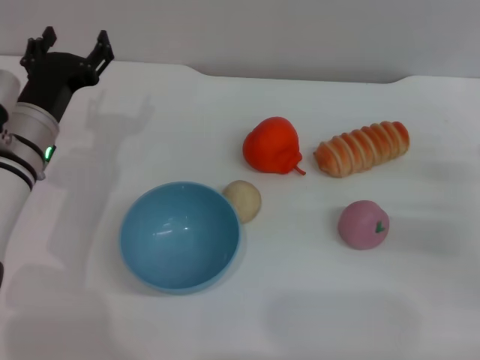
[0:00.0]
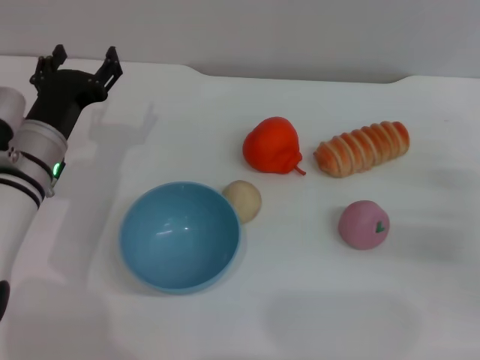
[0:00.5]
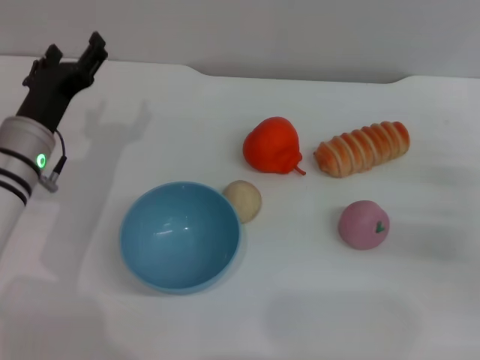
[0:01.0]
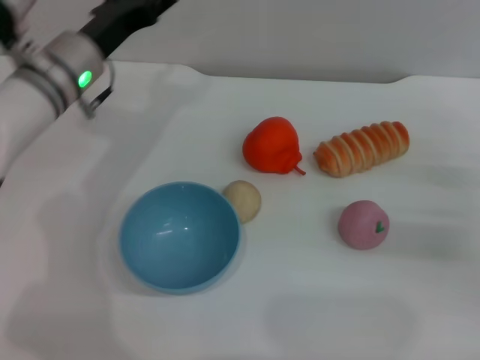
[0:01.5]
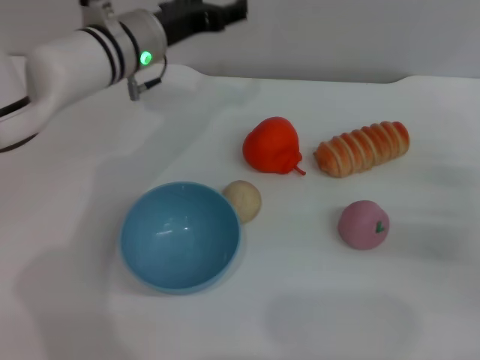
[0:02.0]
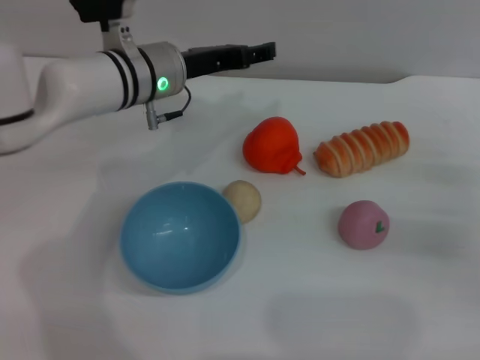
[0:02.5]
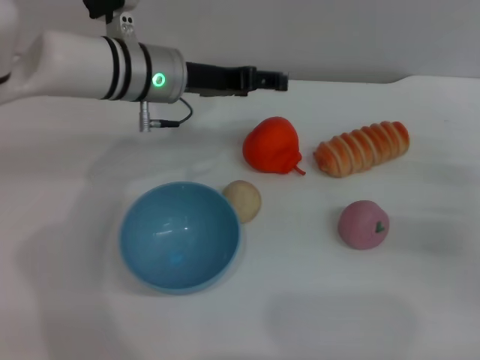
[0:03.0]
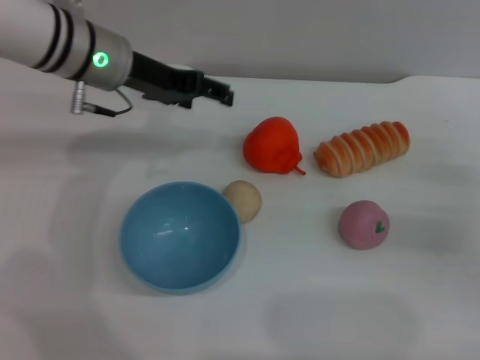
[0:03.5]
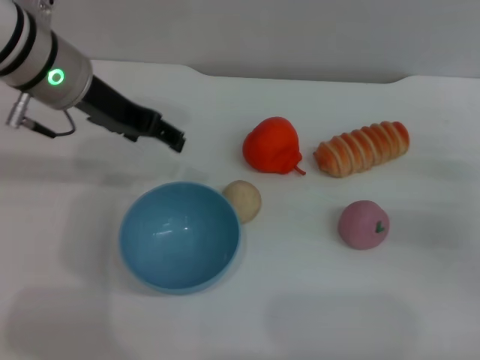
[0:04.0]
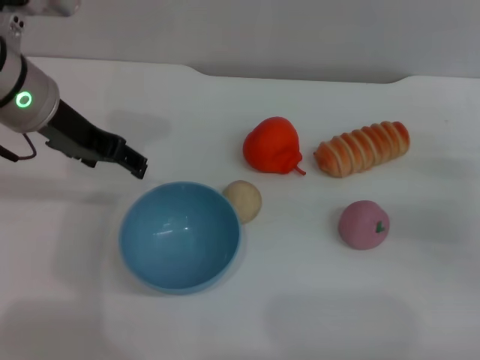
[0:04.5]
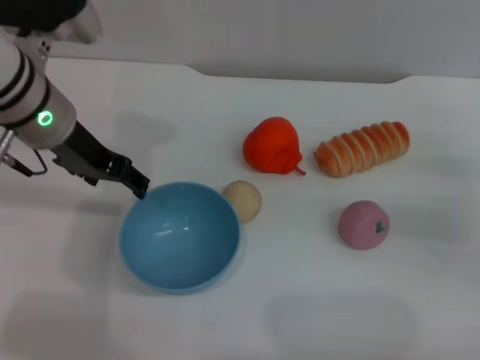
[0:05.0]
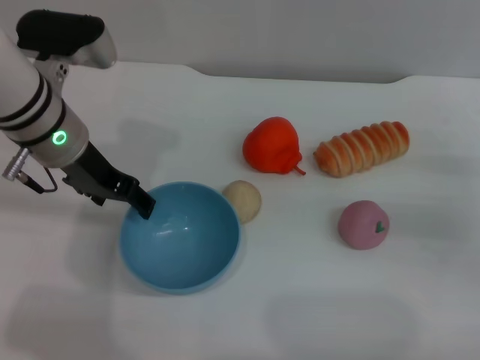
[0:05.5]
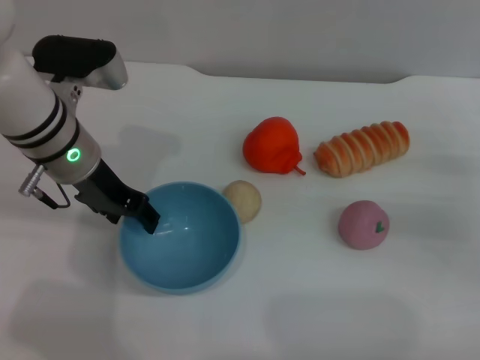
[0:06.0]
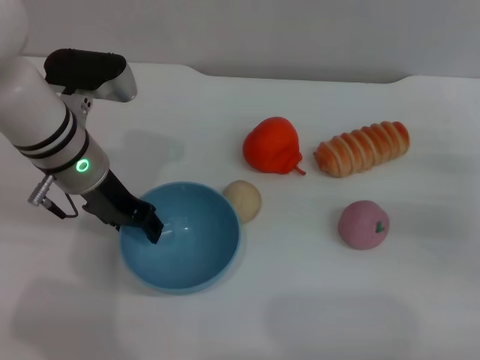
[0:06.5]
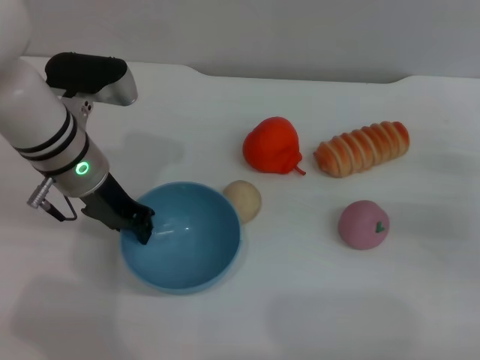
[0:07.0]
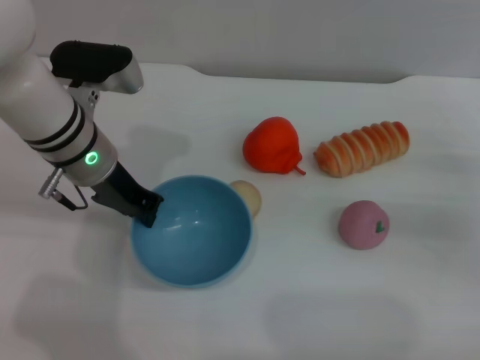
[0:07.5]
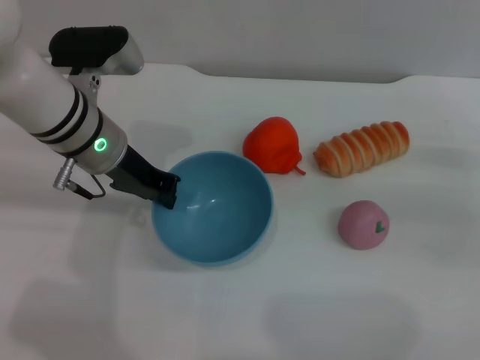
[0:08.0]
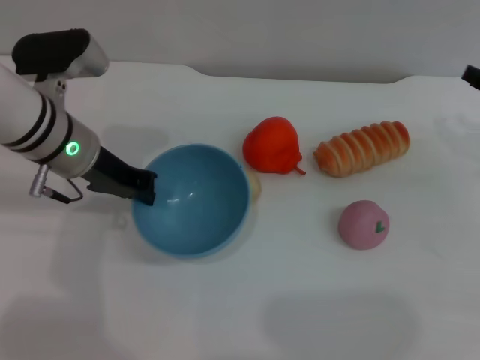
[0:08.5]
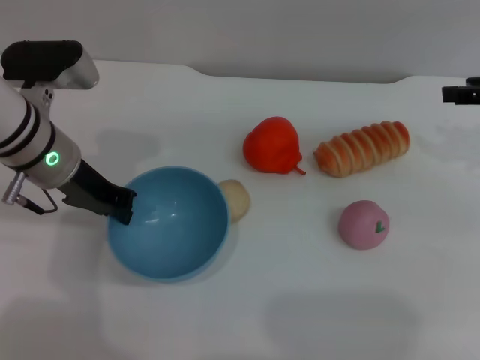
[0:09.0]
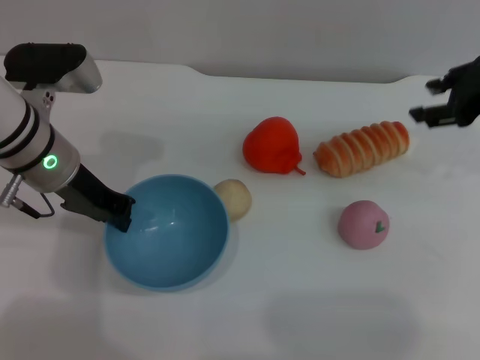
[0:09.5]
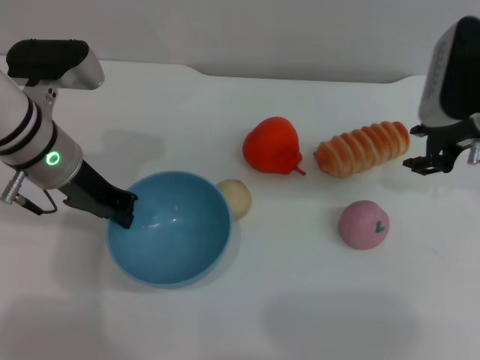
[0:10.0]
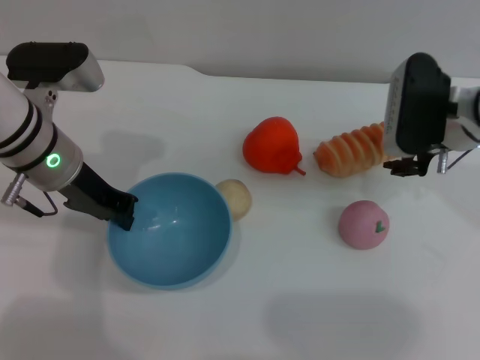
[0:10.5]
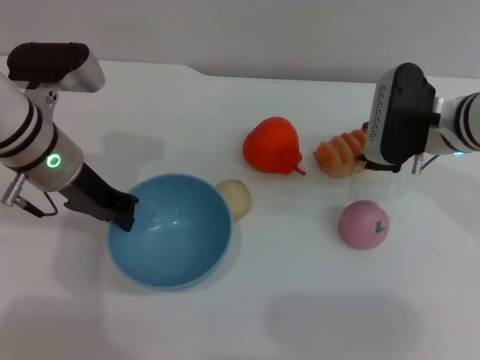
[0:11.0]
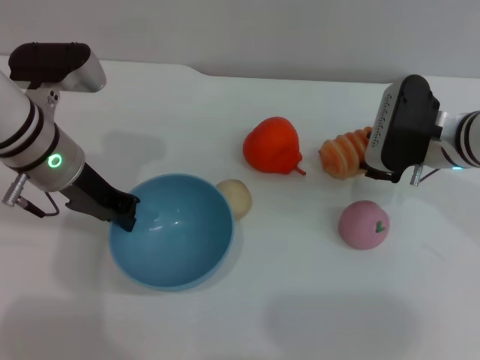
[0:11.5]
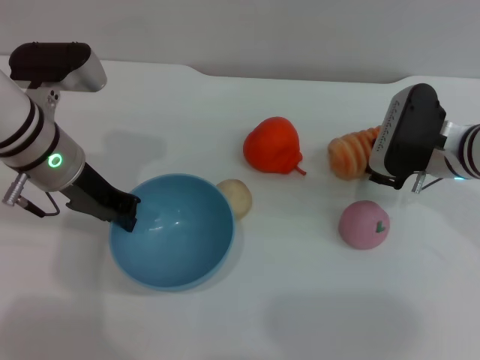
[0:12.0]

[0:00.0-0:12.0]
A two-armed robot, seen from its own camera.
Task of the whole recording: put the bread into the blue bowl and pour it out repeatedly.
Step, 0:00.0 to 0:08.0: Pick up the bowl with the left gripper.
0:00.0 to 0:02.0: The left gripper heads to the right, forward and upward, covering approximately 15 cm.
0:02.0 to 0:04.0: The left gripper heads upward and backward, covering about 10 cm.
0:04.0 to 0:06.0: The left gripper shifts approximately 5 cm downward.
0:06.0 to 0:08.0: The left gripper closes its fingers.
0:08.0 to 0:10.0: The right gripper moves to the left, upward and forward, some 15 cm.
0:10.0 to 0:12.0: The right gripper heads downward, covering about 10 cm.

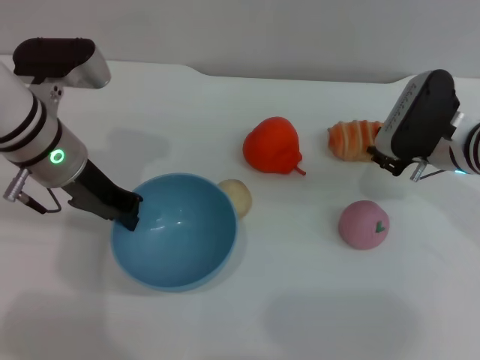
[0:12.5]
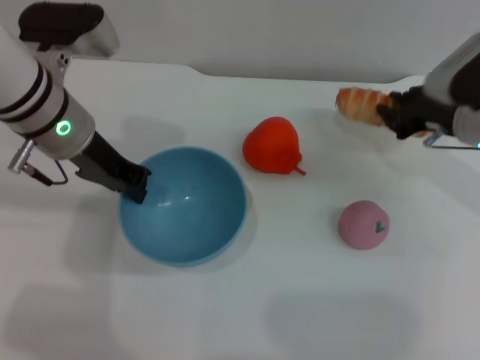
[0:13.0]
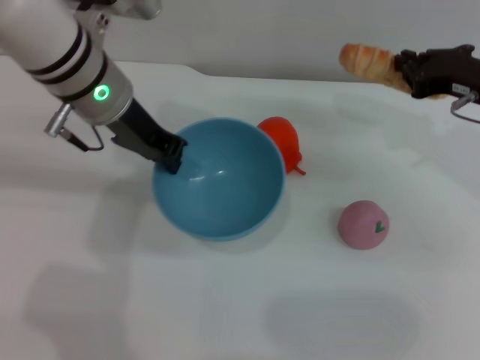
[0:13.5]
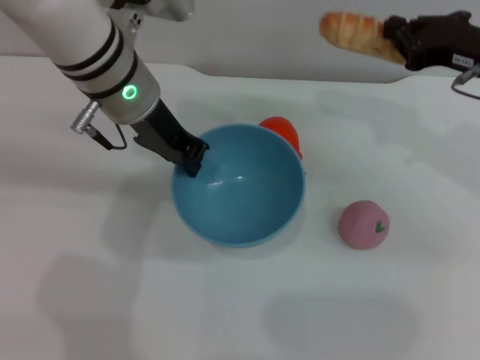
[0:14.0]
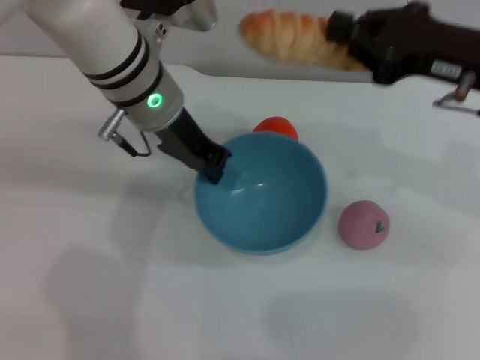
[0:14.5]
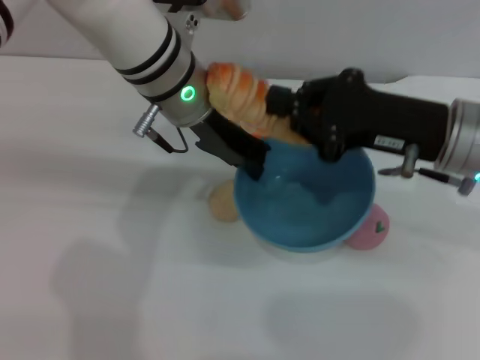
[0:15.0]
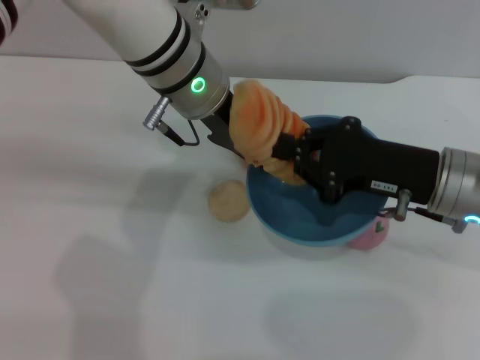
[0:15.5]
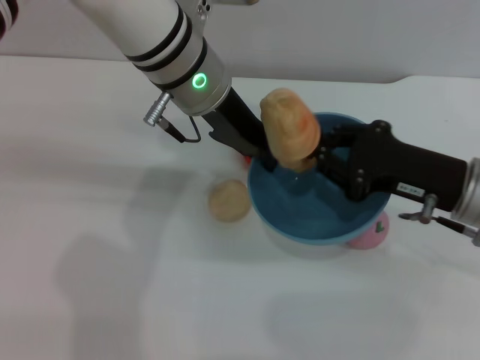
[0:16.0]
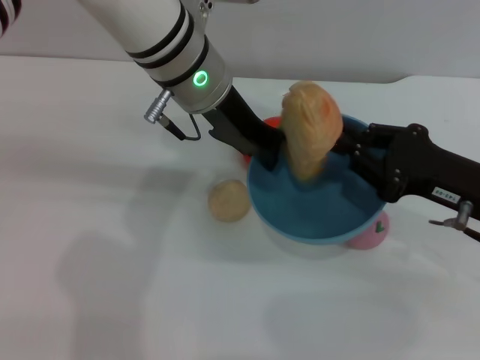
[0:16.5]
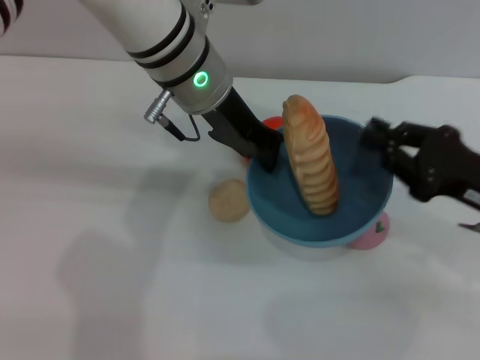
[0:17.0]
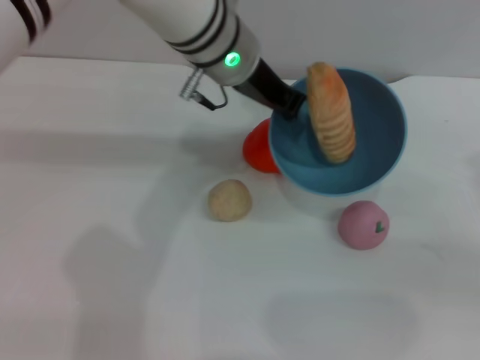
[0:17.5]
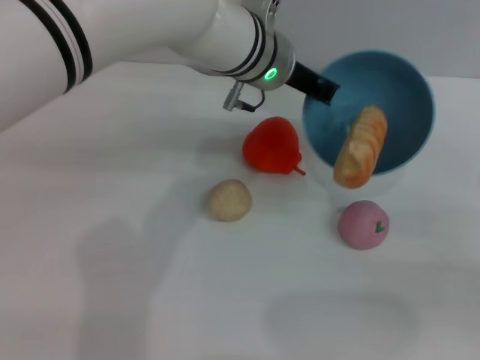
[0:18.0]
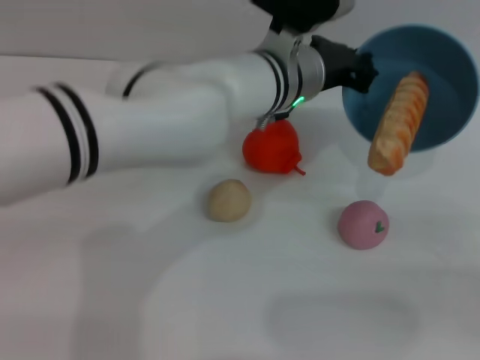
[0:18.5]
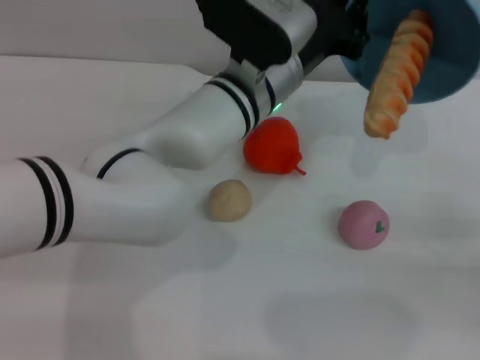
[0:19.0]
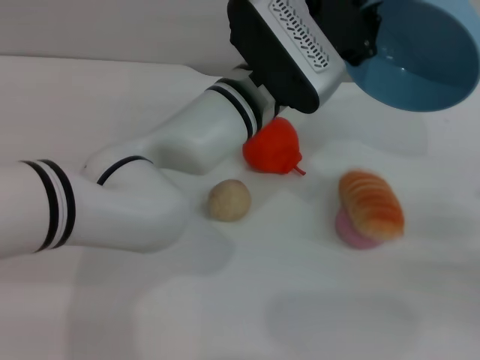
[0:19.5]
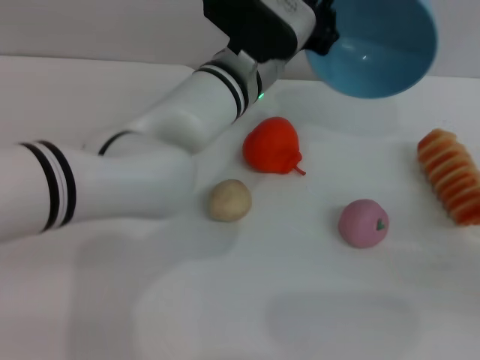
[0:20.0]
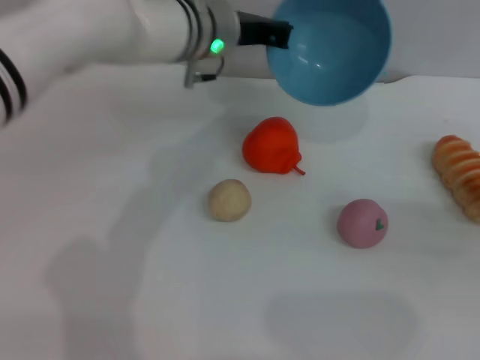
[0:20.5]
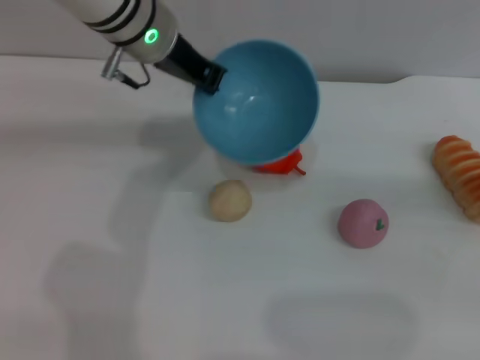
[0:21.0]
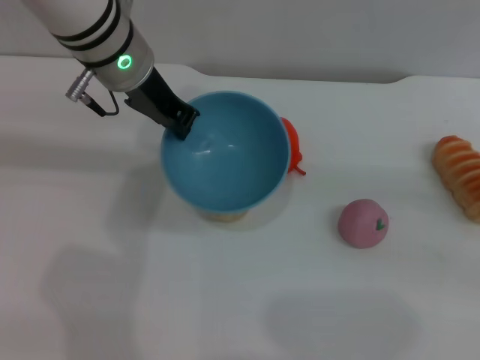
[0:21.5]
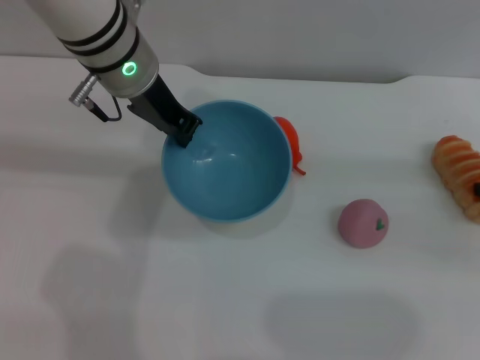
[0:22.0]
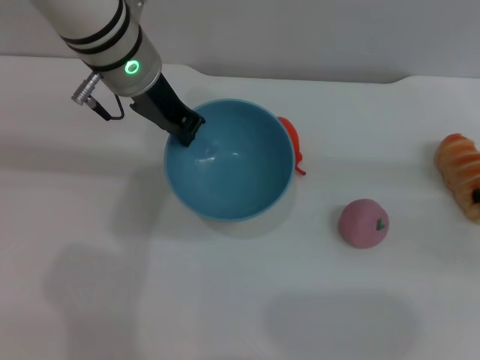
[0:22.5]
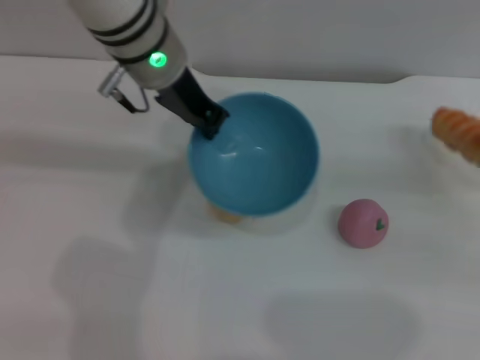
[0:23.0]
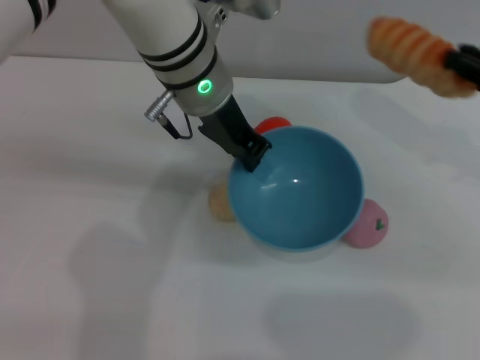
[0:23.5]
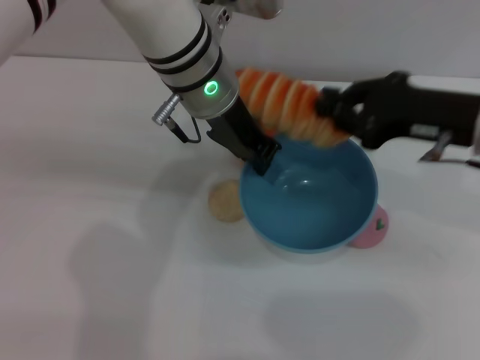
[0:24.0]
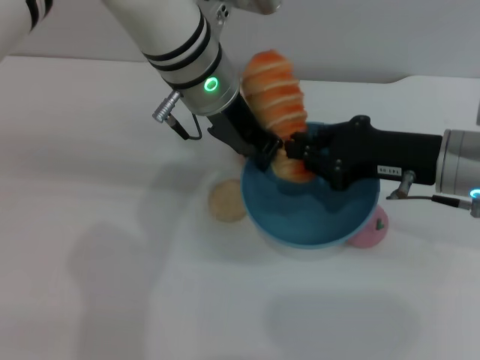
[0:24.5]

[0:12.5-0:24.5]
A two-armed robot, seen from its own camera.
Task of the whole recording: put the bread into the blue bowl and pour it out repeatedly.
Step, 0:13.5 to 0:17.0: Place the bread into the bowl.
Step, 0:17.5 to 0:20.0: Pour the bread out of the bowl.
Step, 0:20.5 to 0:23.0: Pick up the bread with the right gripper.
0:12.5 to 0:14.5: The left gripper travels to the right by about 10 cm; the right gripper is displaced upward and backward by some 15 cm, and closes its fingers.
0:14.5 to 0:16.5: The right gripper is displaced downward and backward by about 10 cm.
0:16.5 to 0:18.5: The left gripper moves to the right and downward, roughly 10 cm. Meanwhile the right gripper heads to the right and backward, covering about 15 cm.
0:18.5 to 0:20.5: The left gripper heads to the left, covering some 10 cm. Meanwhile the right gripper moves forward, approximately 5 cm, and opens.
0:20.5 to 0:22.5: The left gripper moves about 10 cm. The right gripper is displaced forward by about 10 cm.
0:22.5 to 0:24.5: The right gripper travels to the left by approximately 15 cm, and closes up. Meanwhile the left gripper moves to the right, roughly 5 cm.

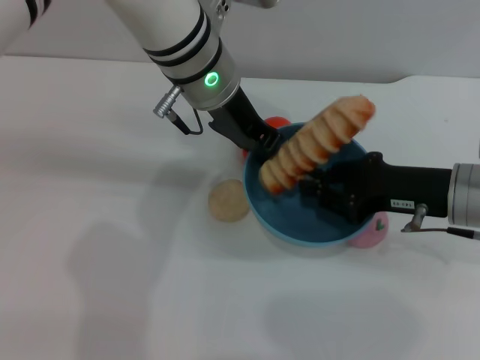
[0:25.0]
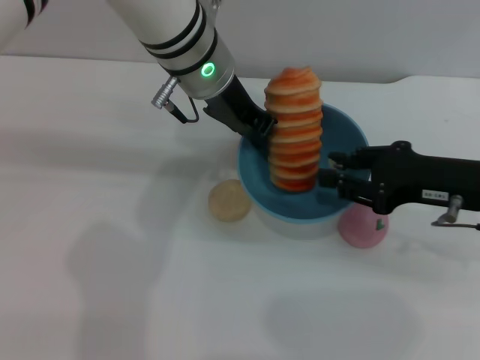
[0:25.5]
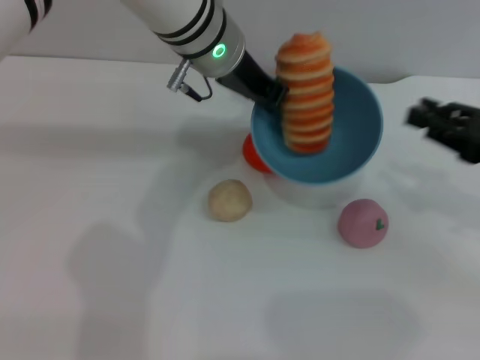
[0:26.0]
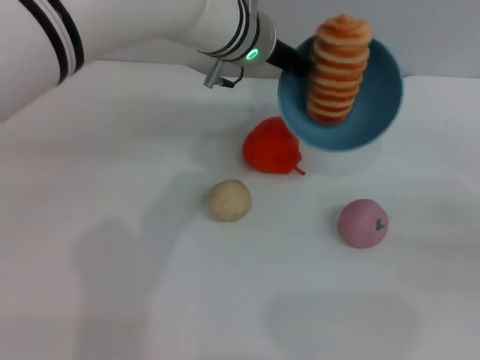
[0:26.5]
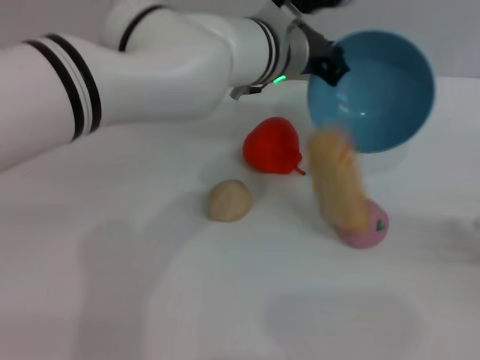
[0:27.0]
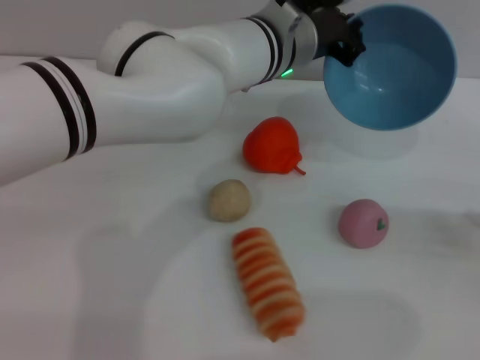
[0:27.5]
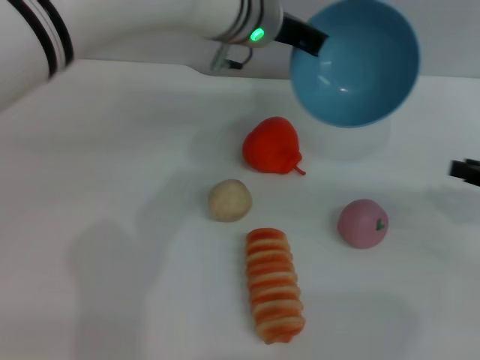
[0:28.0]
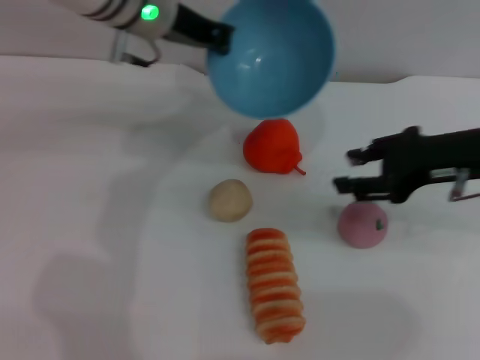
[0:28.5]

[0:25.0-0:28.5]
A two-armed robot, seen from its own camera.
Task of the whole recording: put the bread into the blue bowl and pour it out repeatedly.
Step, 0:26.5 to 0:27.5: Pour the bread out of the bowl.
0:25.0 to 0:27.0: The left gripper travels to the right by some 5 cm. Meanwhile the right gripper heads to the right, covering about 20 cm, and opens its fingers.
0:27.0 to 0:28.5: The right gripper shifts approximately 20 cm to the left, upward and forward, while the left gripper is displaced to the left and upward by roughly 15 cm.
